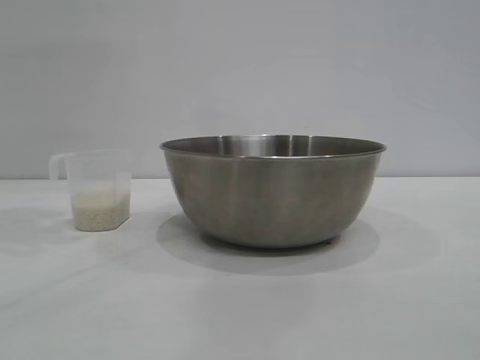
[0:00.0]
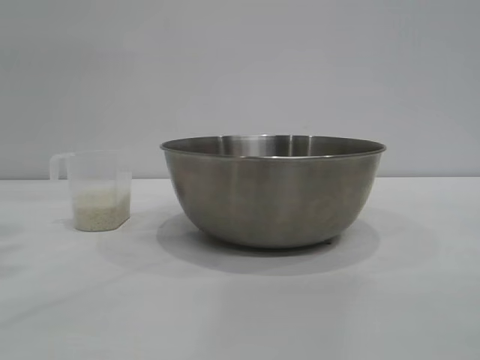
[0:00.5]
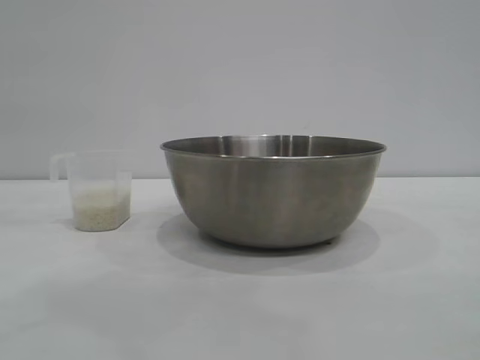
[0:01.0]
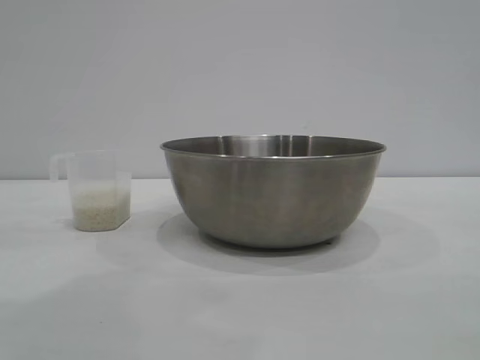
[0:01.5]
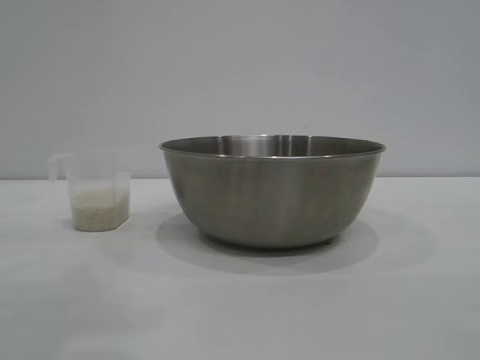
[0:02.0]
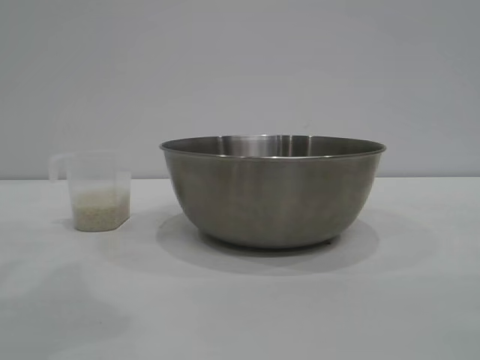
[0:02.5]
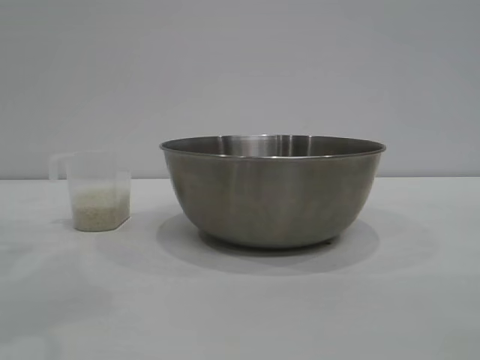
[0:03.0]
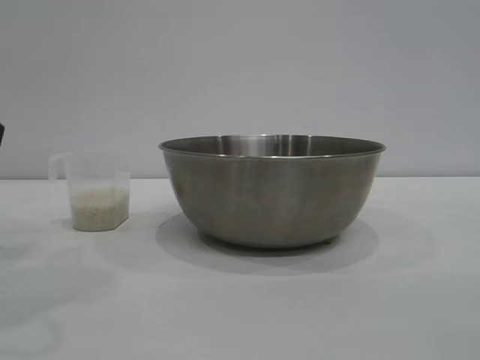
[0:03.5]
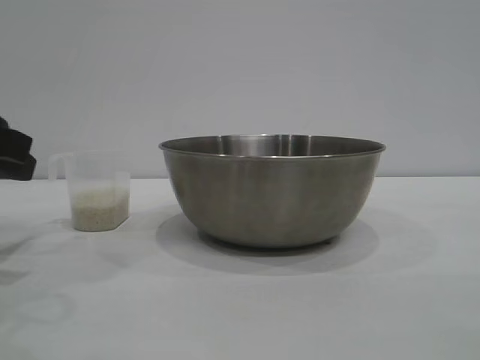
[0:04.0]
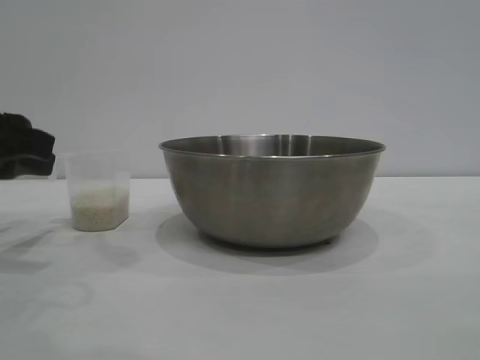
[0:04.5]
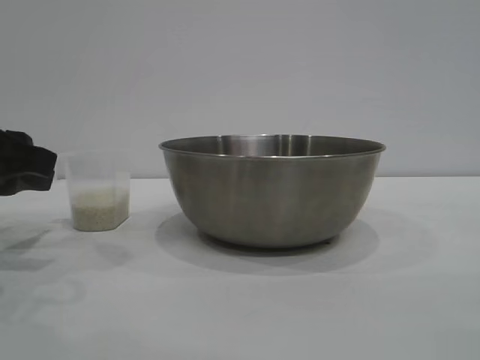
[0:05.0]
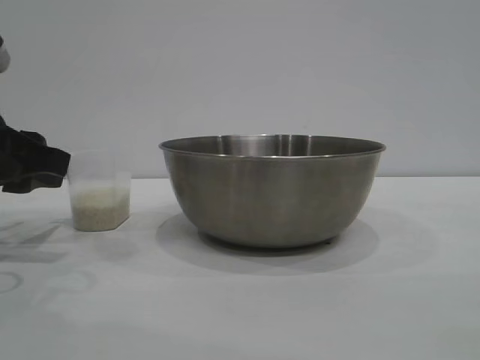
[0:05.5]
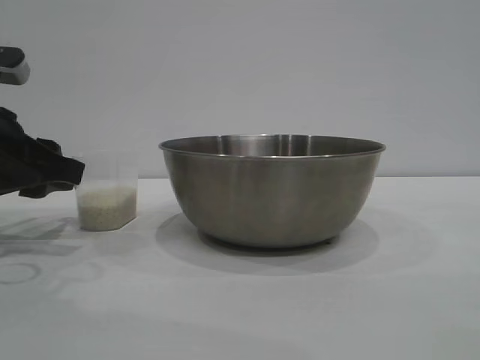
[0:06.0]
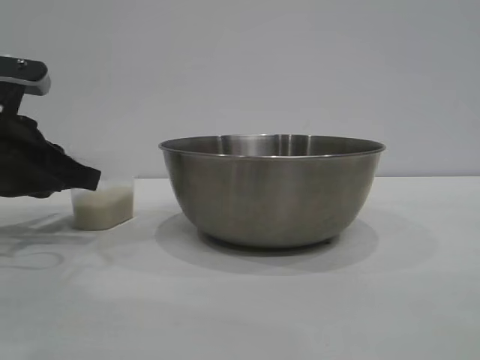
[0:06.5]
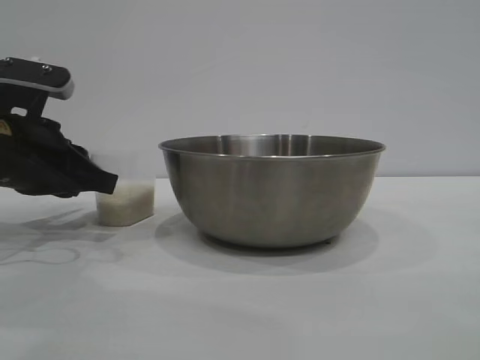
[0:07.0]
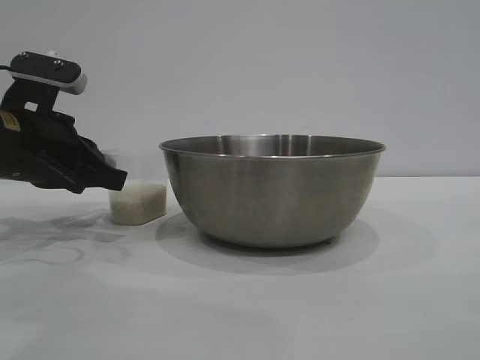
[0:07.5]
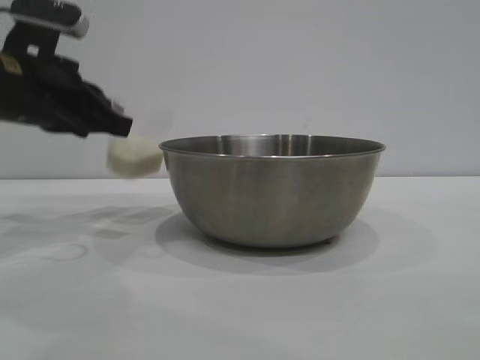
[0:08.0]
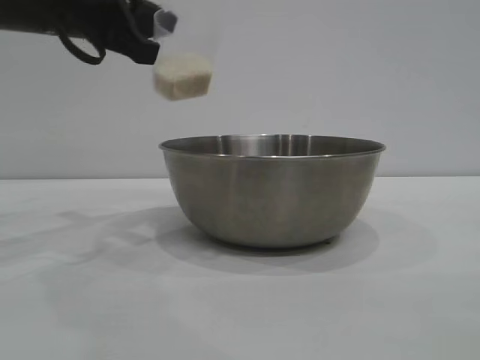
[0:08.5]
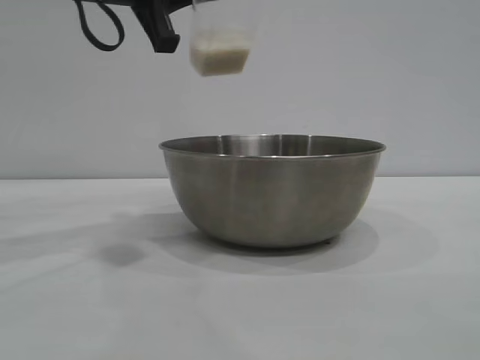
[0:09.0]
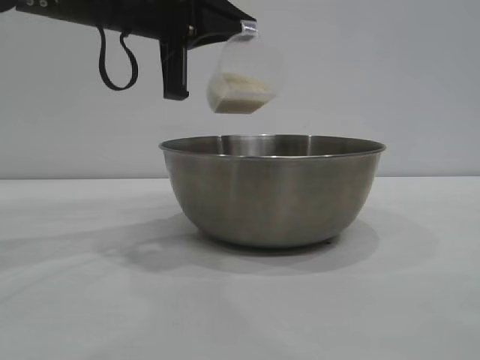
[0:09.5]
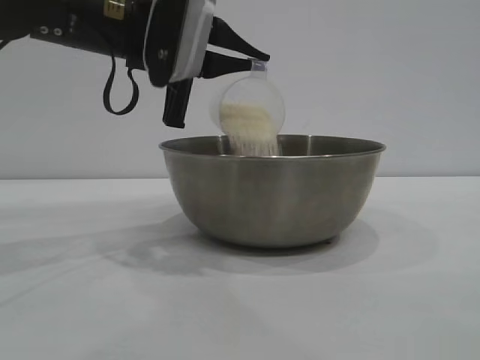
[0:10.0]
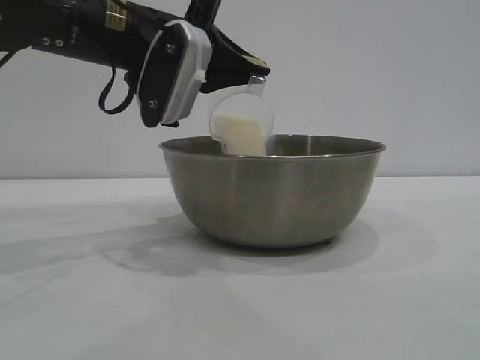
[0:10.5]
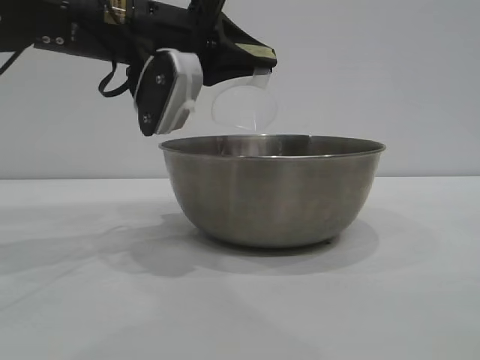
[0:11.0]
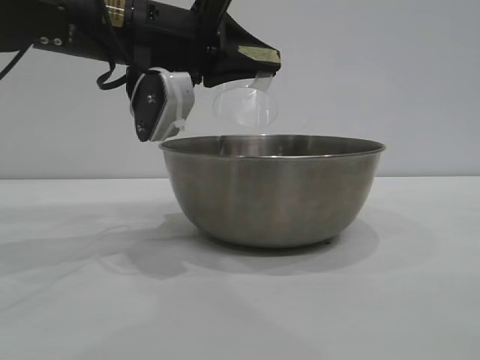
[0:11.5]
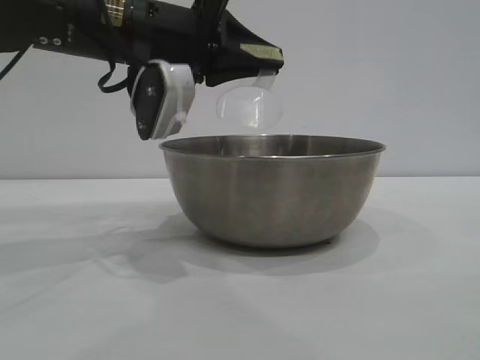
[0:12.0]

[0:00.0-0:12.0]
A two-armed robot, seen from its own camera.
Task of the whole recording: the right gripper grasp the rice container and place it in the center of the table, the left gripper grasp the rice scoop and pour the rice into the rice container.
Step, 0:00.0 to 0:07.5: Pick up the cup with rice in it with the left gripper.

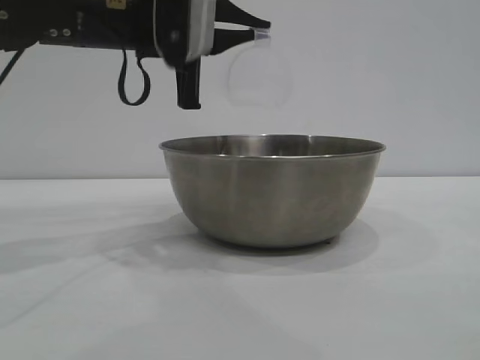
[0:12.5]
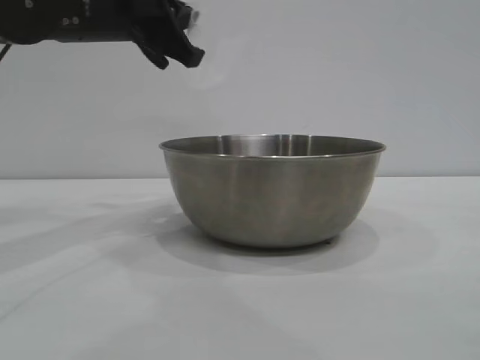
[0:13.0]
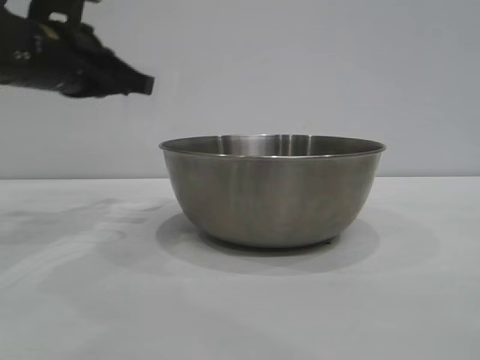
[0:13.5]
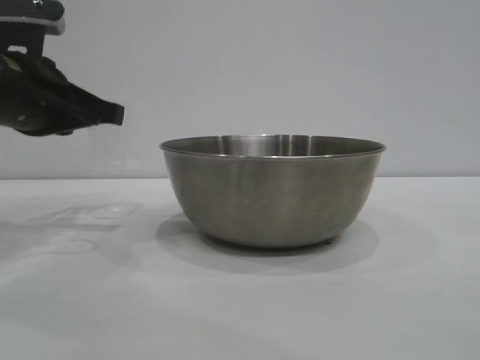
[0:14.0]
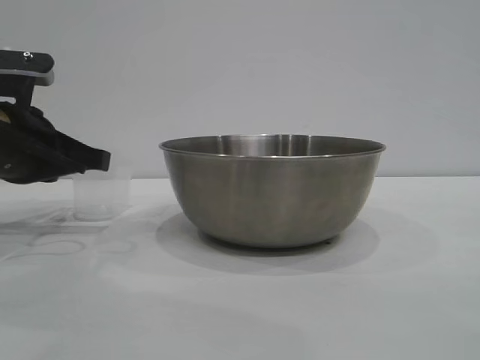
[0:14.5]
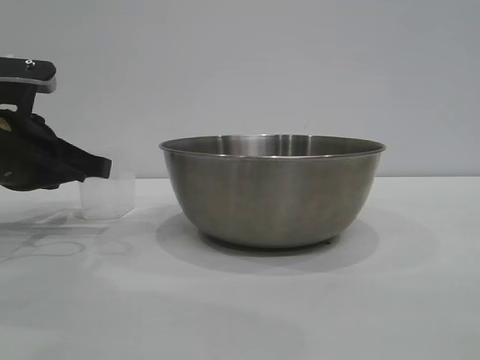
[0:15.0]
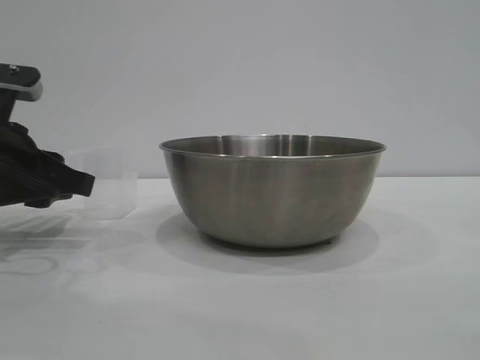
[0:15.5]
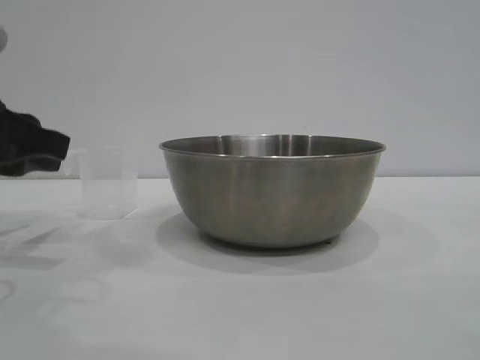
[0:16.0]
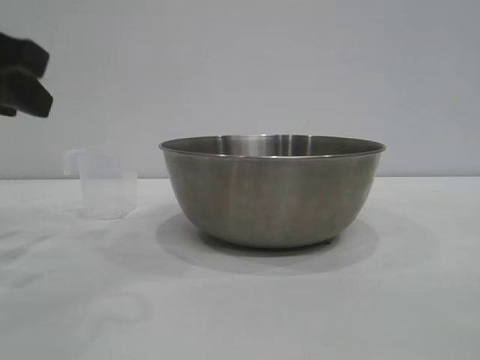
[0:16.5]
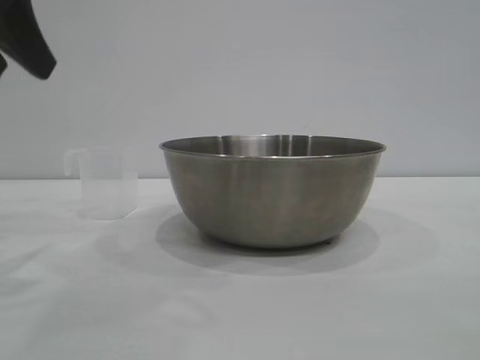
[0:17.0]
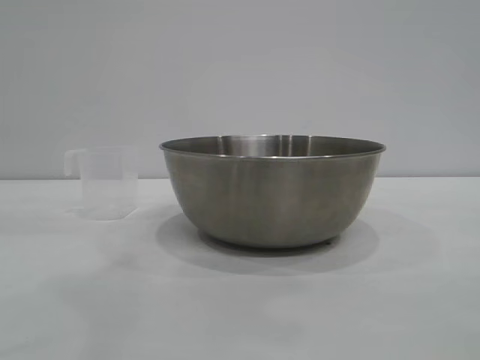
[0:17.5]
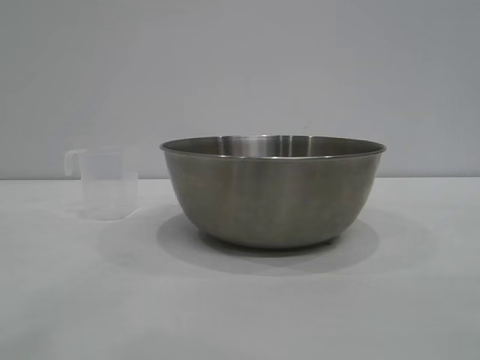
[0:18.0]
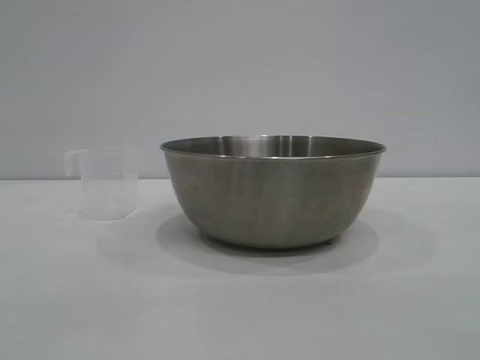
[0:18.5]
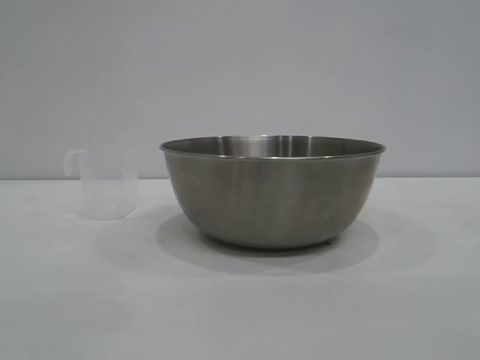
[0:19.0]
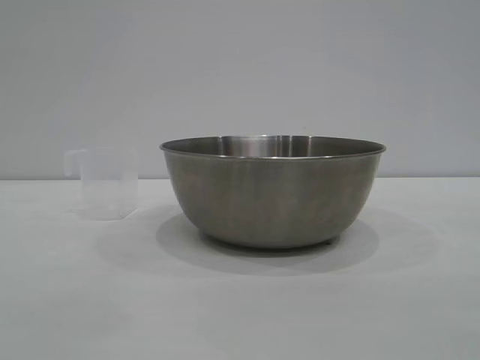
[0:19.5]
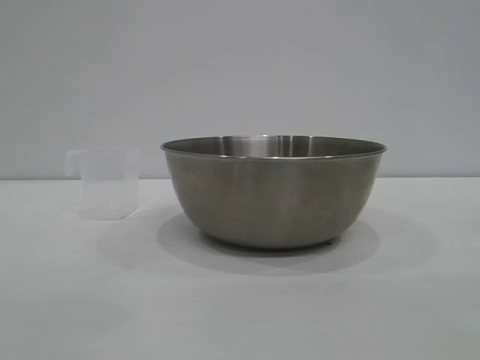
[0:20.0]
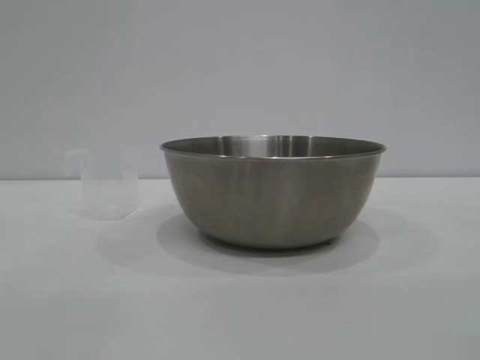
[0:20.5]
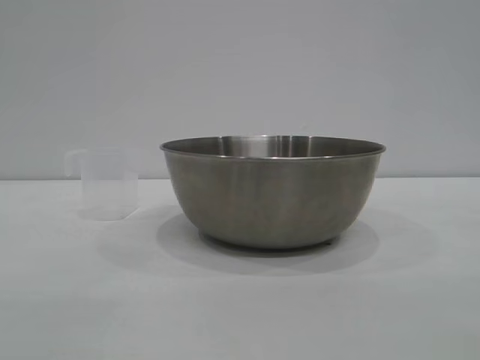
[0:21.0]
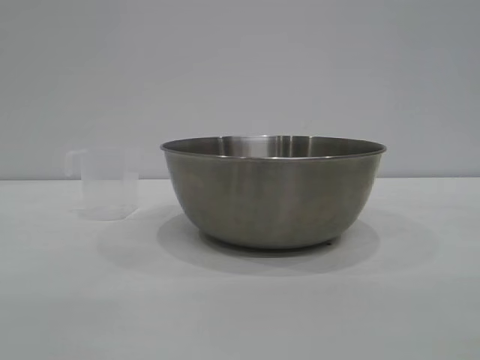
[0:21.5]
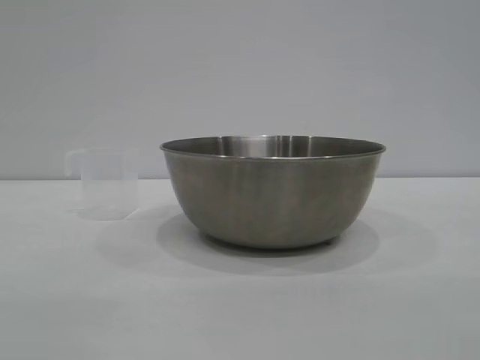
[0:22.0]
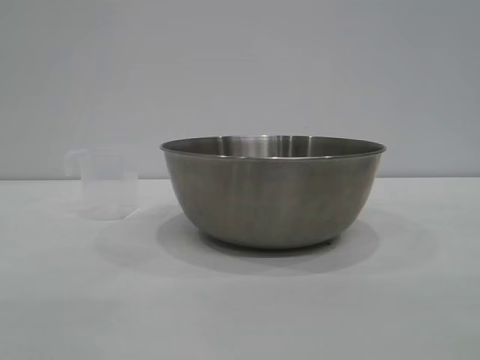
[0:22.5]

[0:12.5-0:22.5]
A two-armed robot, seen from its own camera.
Task of the whole recording: the right gripper grasp the rice container and place it in the center of the table, the left gripper grasp the rice scoop and pour the rice into the rice container.
Step, 0:13.0 to 0:16.0: Place the cup on the table with the left gripper.
